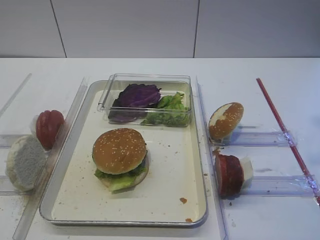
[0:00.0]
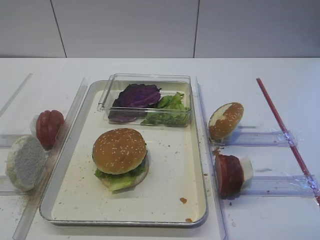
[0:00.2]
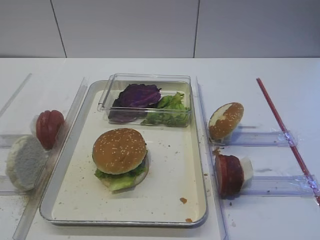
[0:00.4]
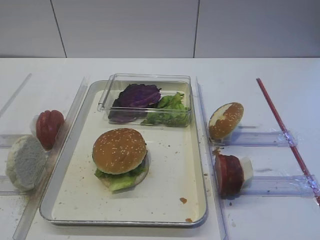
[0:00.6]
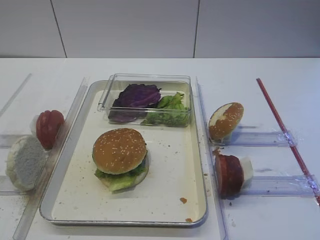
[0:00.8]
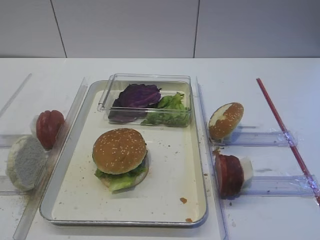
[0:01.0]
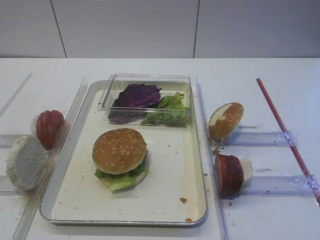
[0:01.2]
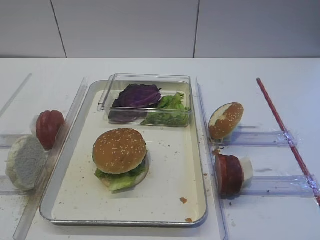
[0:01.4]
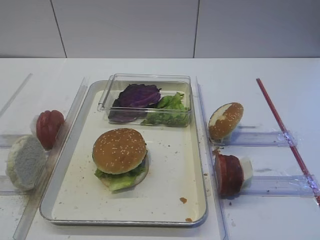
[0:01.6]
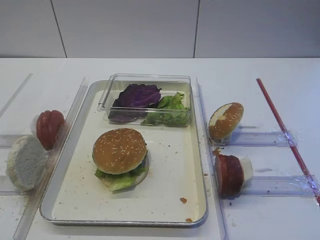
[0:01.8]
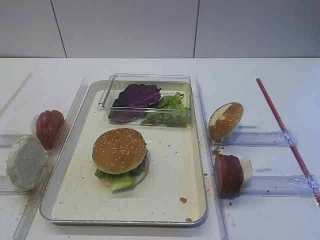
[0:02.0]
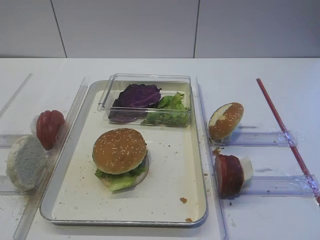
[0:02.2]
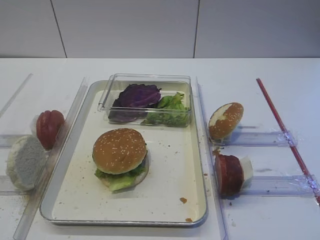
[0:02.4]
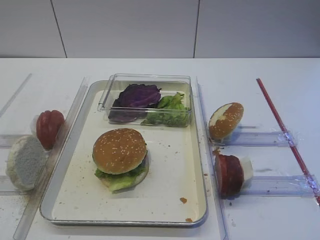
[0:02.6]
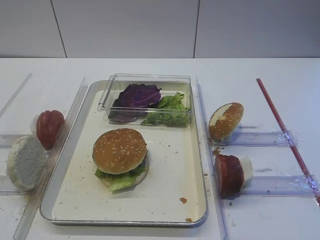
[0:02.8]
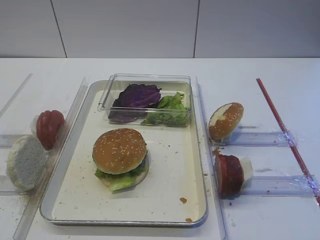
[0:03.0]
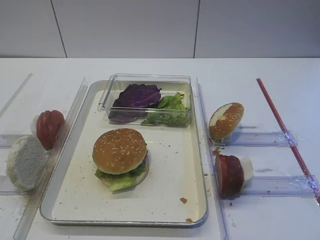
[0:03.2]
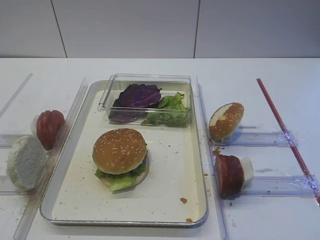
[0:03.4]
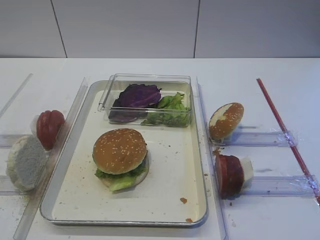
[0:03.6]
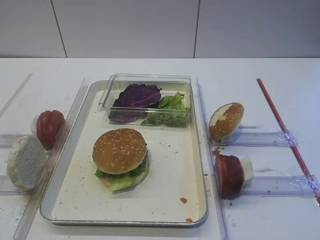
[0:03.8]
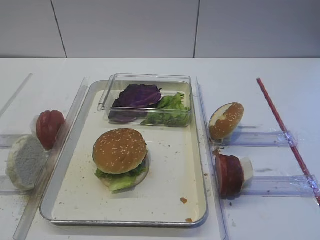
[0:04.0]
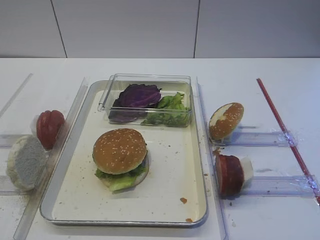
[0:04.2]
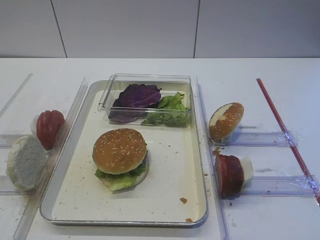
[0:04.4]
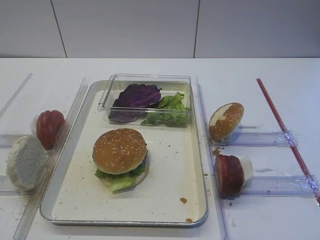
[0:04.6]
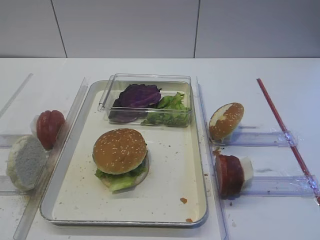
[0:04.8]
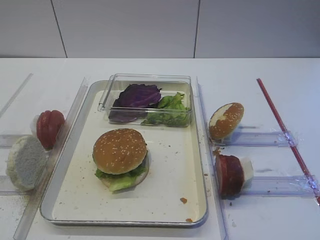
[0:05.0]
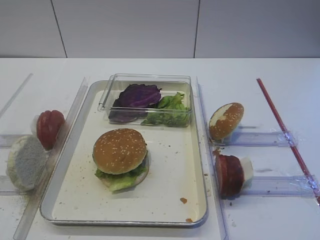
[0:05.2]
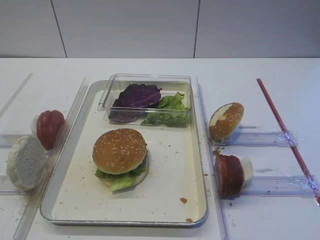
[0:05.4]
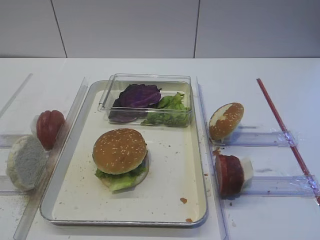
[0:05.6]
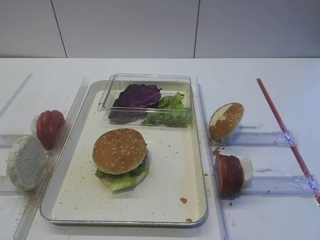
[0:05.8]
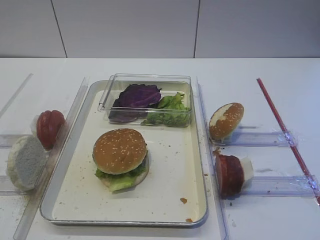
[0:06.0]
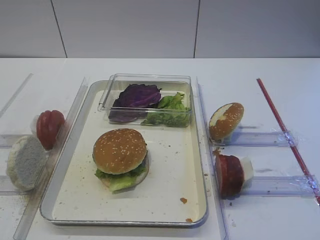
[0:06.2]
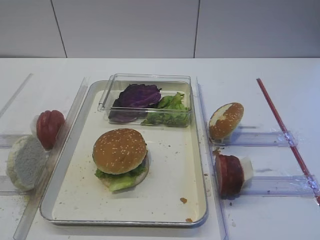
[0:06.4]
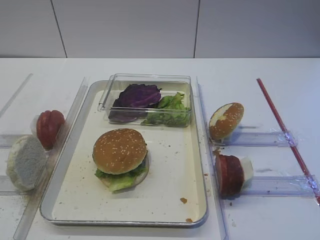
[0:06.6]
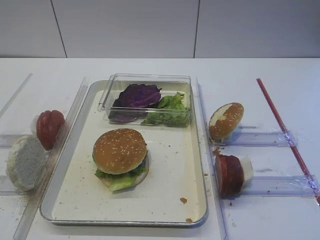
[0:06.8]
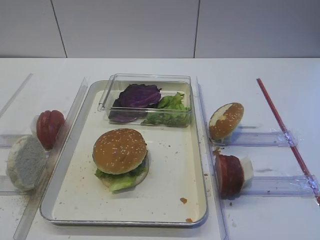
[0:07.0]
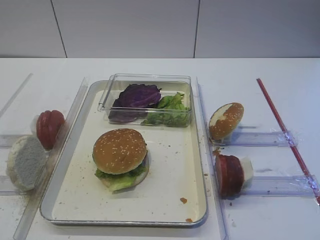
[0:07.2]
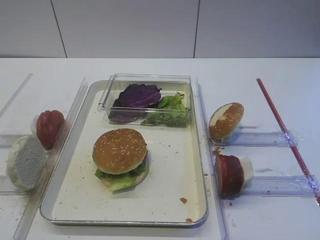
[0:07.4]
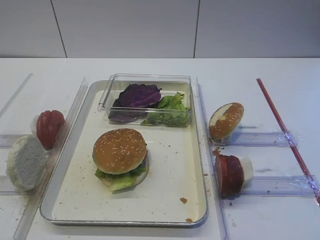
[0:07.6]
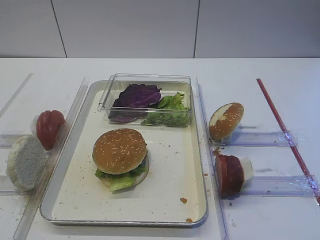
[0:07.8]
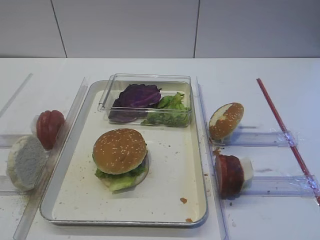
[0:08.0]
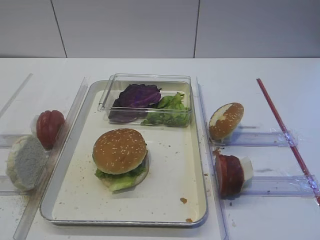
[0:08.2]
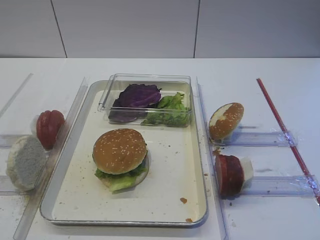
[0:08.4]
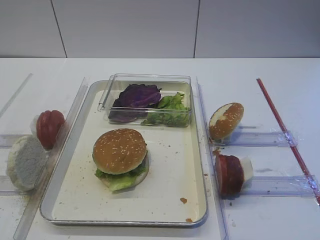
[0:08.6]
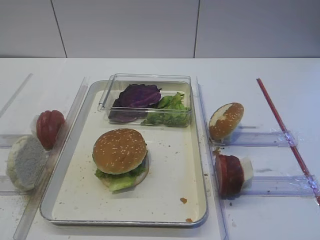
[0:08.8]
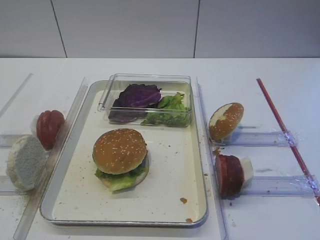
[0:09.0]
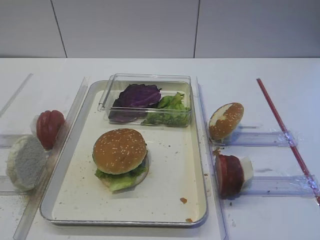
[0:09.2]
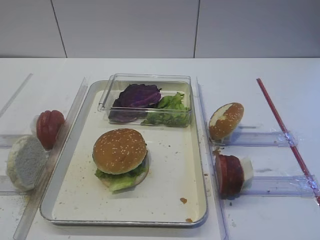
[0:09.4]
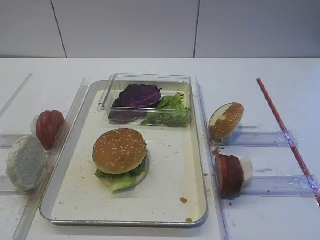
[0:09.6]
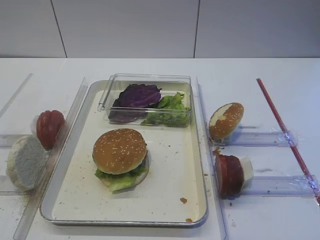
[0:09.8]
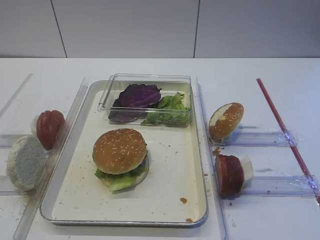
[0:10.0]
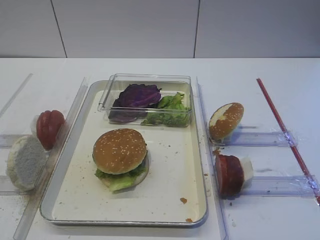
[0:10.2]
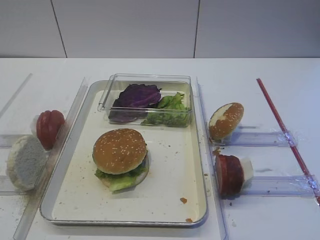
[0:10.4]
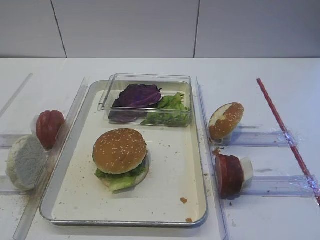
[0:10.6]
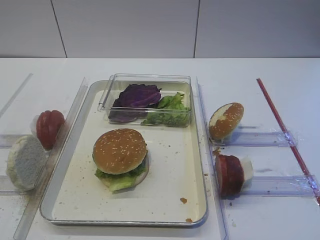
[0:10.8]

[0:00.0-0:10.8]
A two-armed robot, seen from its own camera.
0:03.0 to 0:09.2: Both grippers stay put.
0:09.2 to 0:10.8: The two grippers keep their place.

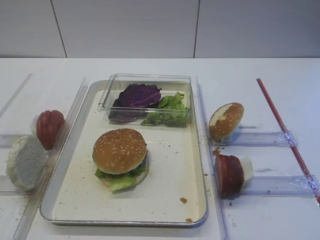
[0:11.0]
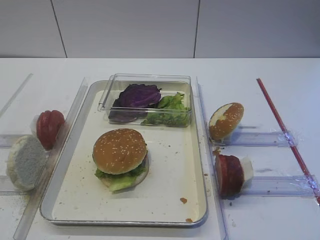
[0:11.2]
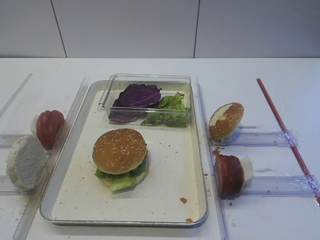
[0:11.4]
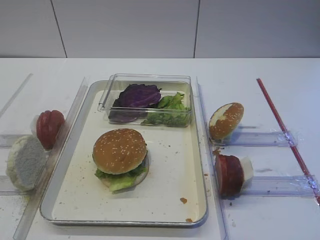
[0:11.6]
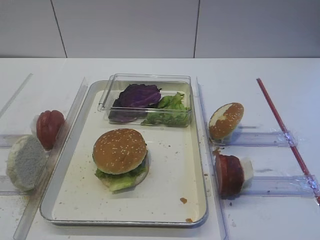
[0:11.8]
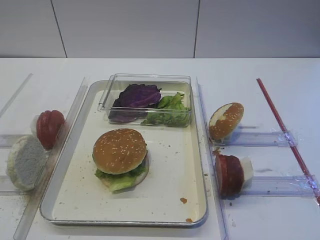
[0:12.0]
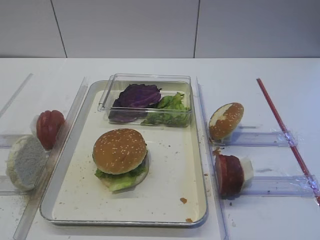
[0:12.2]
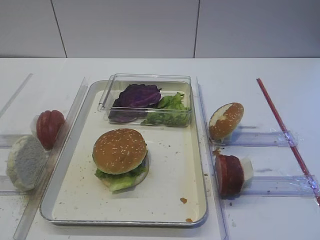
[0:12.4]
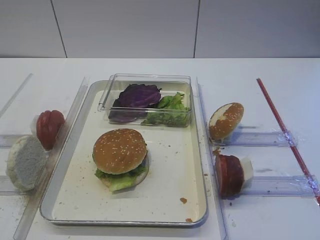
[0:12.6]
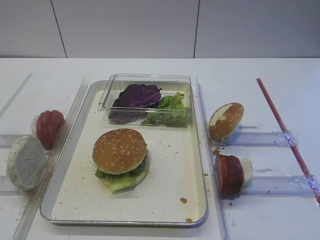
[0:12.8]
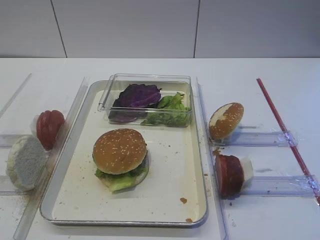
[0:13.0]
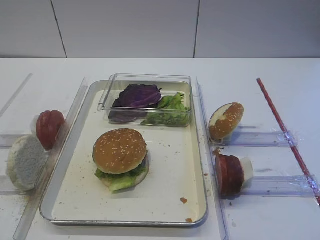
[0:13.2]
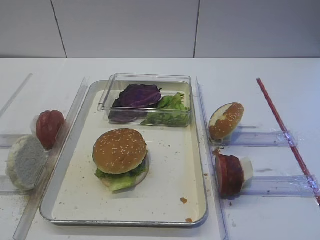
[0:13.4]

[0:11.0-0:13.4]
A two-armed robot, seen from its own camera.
0:11.0 to 0:13.4: The two grippers keep their place.

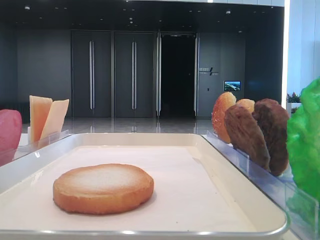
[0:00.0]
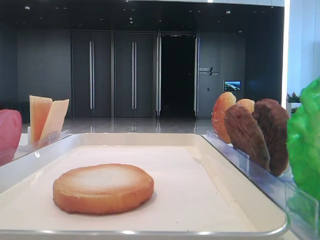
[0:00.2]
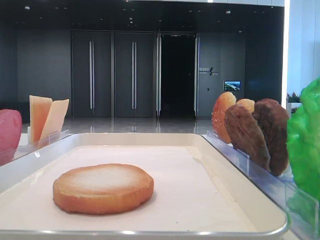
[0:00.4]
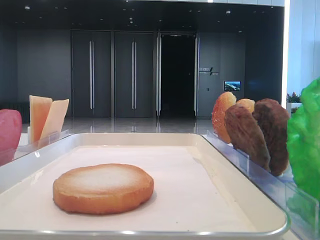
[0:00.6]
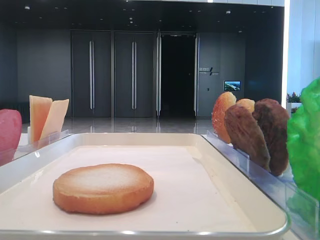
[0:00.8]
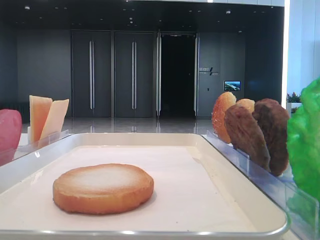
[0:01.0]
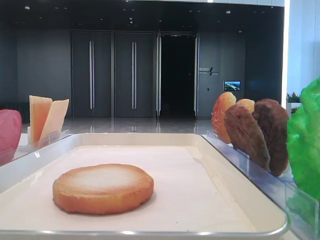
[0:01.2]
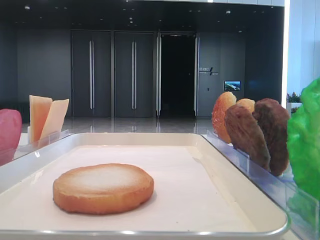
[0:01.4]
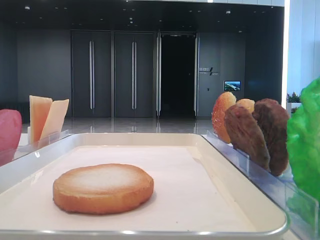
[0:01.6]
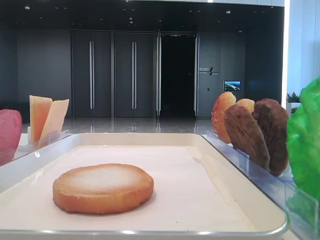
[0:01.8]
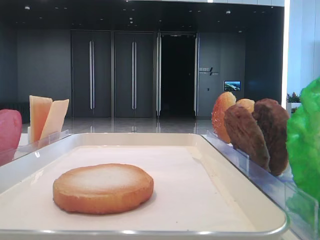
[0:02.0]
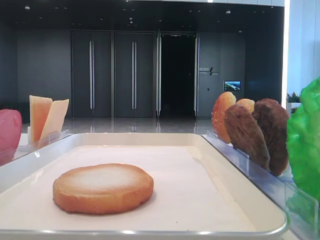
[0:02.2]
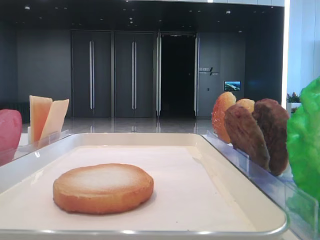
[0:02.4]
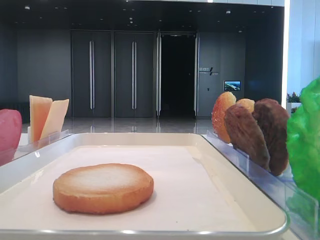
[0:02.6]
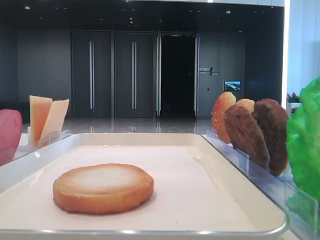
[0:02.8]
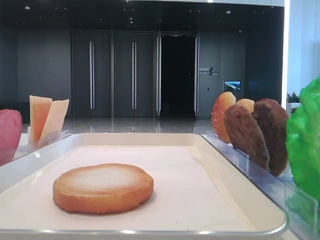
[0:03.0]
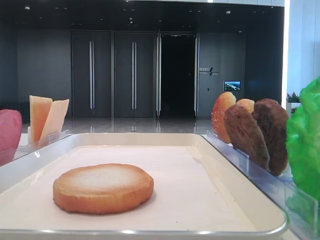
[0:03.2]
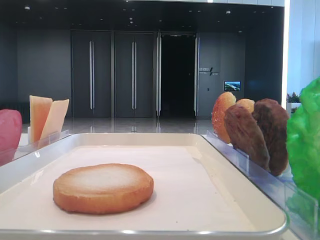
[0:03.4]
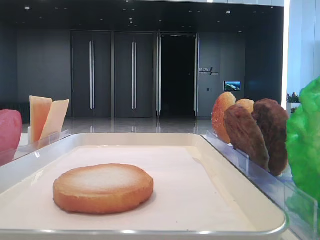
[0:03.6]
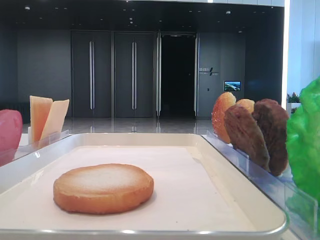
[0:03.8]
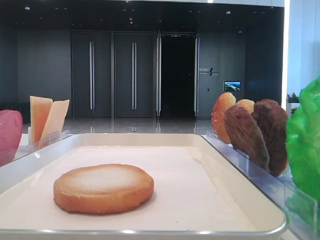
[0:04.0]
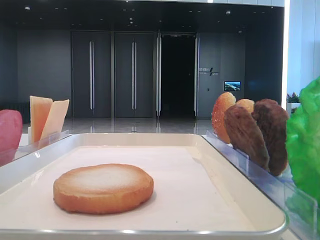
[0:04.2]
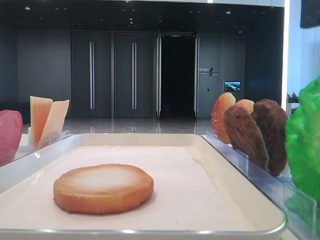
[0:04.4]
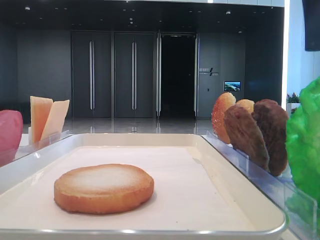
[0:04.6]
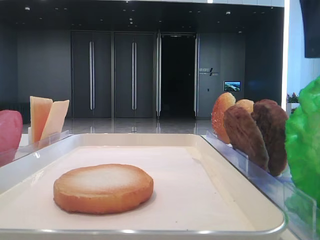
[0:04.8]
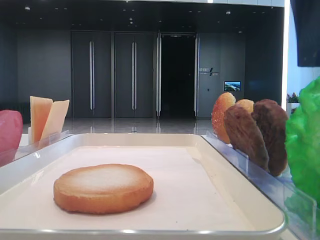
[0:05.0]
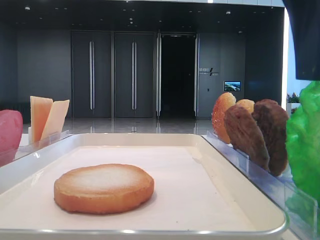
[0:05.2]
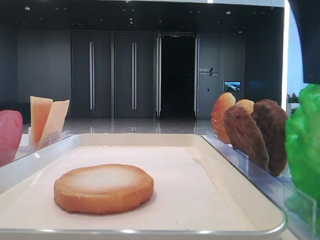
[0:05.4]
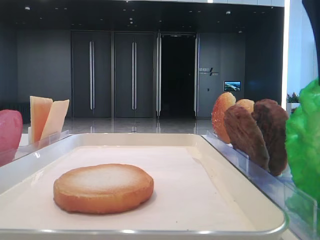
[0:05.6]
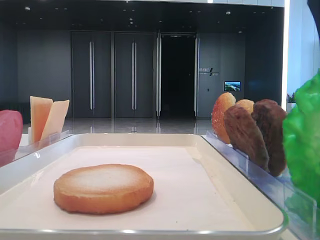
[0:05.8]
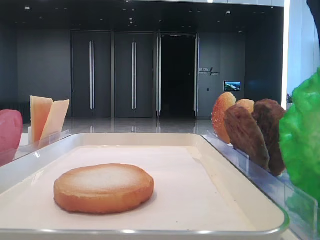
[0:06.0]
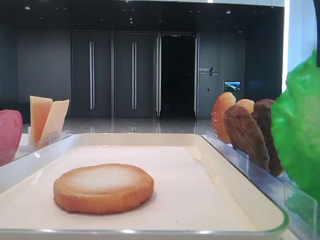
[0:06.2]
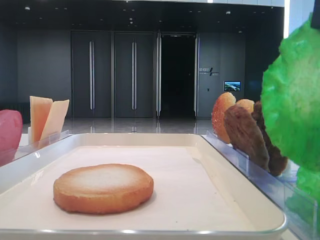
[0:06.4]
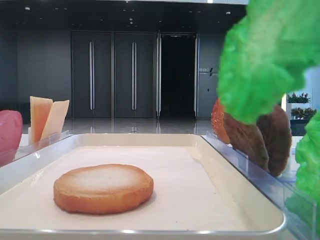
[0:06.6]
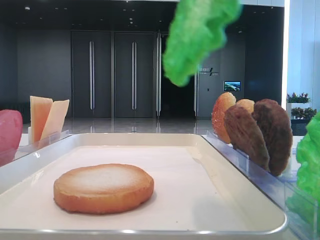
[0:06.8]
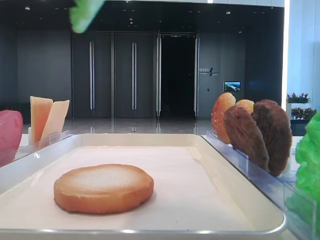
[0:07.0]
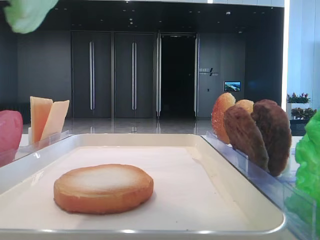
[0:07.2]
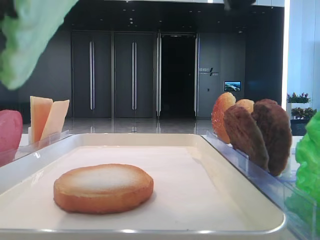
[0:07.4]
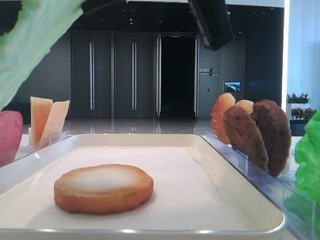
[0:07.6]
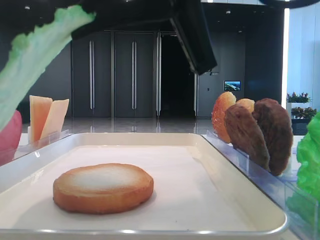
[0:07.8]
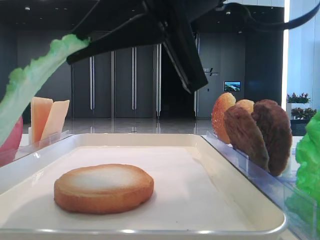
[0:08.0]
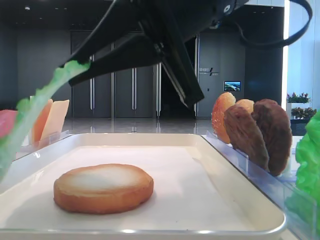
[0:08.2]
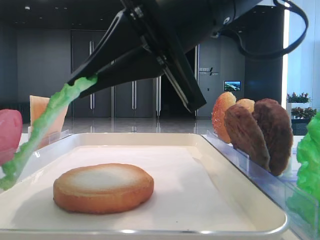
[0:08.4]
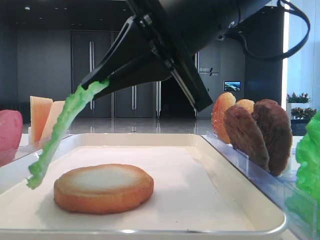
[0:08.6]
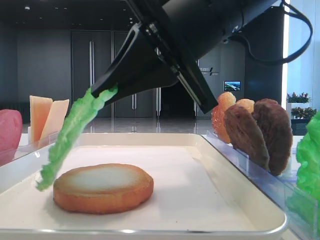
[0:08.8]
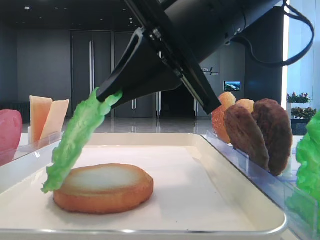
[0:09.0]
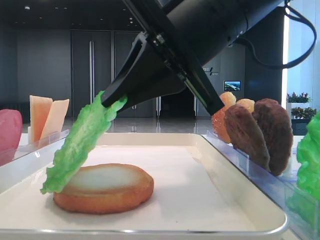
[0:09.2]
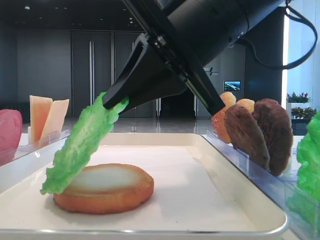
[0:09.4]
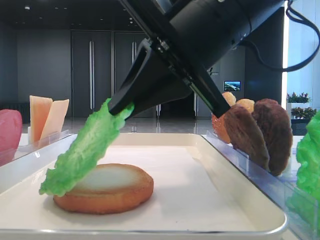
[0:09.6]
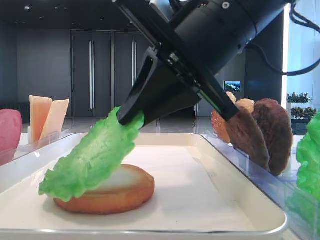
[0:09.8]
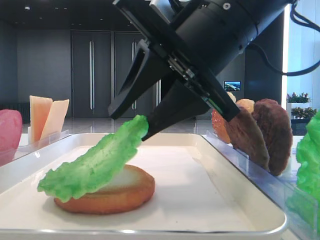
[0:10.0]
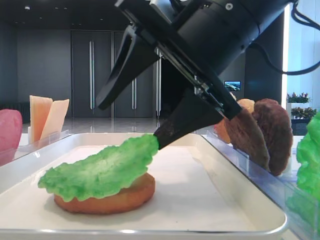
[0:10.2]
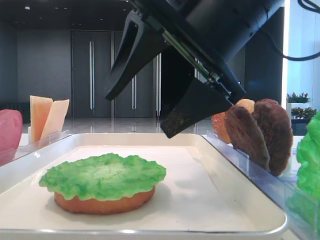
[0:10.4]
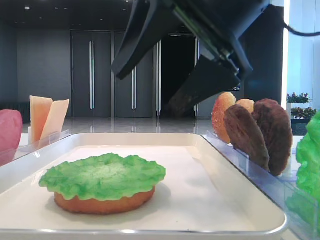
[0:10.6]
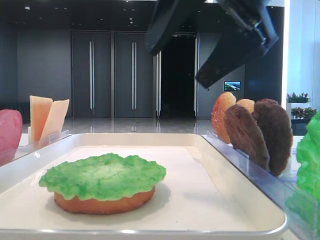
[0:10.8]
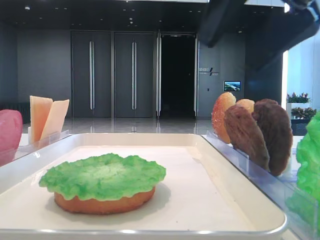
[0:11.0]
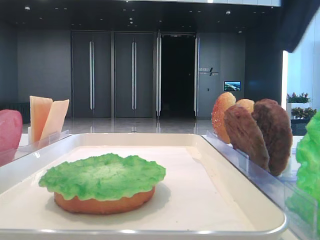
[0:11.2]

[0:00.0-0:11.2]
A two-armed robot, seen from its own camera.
Step, 0:00.0 to 0:05.8: Grab the lettuce leaf with the right hand.
Step, 0:06.0 to 0:10.2: Place the lettuce leaf on the bottom bread with the right hand.
0:03.2 to 0:04.8: The right gripper moves to the left, roughly 10 cm.
0:04.8 to 0:06.4: The right gripper closes.
0:06.4 to 0:08.0: The right gripper is displaced to the left, downward and forward by about 15 cm.
0:09.6 to 0:11.2: The right gripper shifts roughly 15 cm to the right and upward, and opens.
